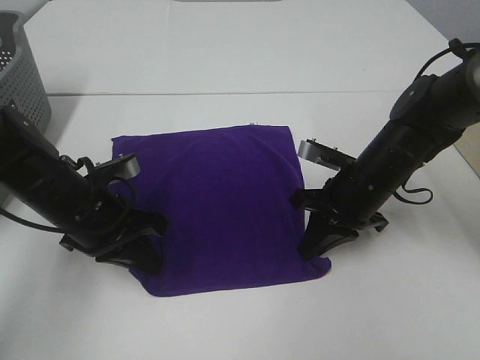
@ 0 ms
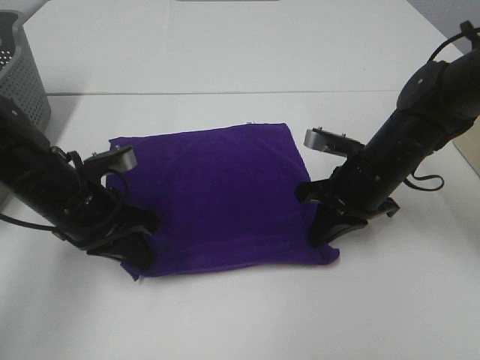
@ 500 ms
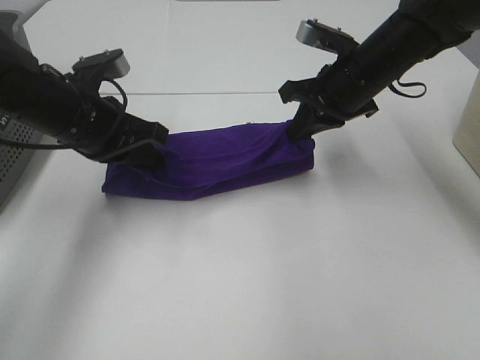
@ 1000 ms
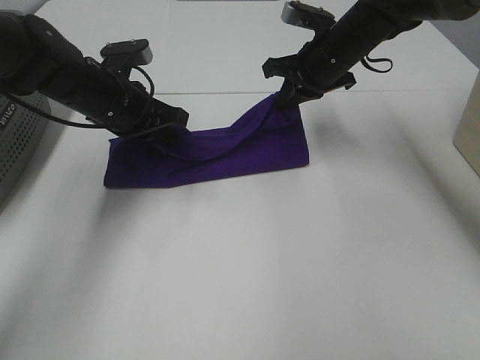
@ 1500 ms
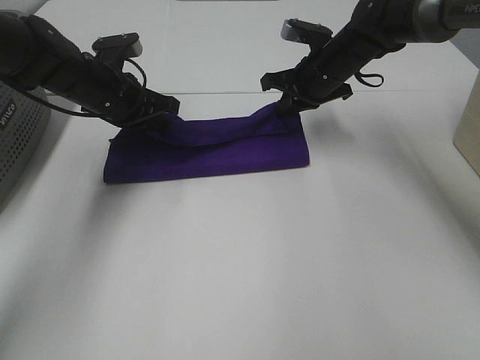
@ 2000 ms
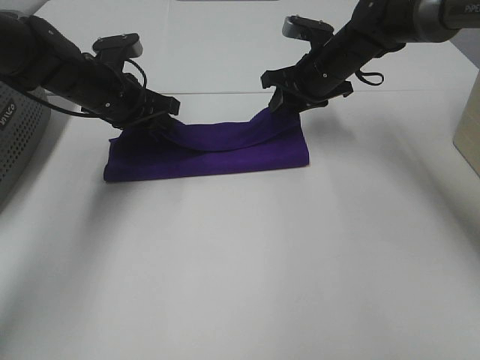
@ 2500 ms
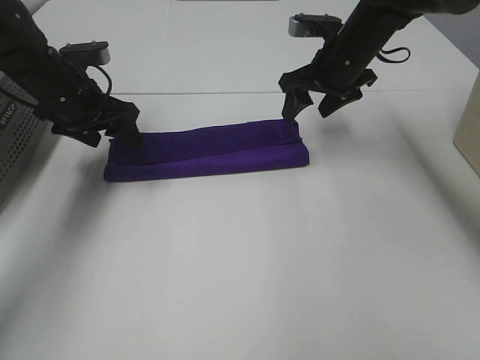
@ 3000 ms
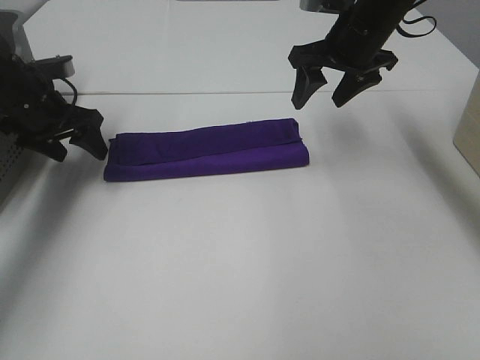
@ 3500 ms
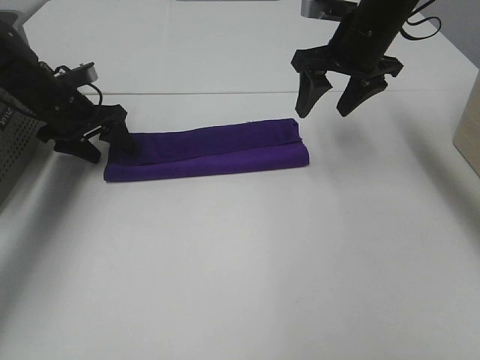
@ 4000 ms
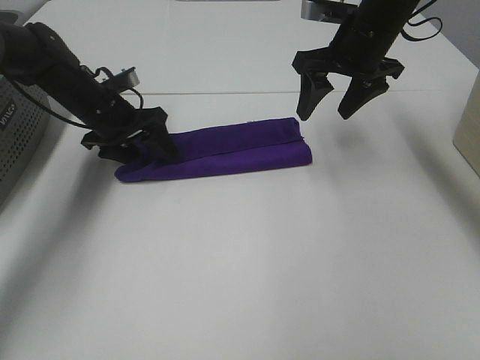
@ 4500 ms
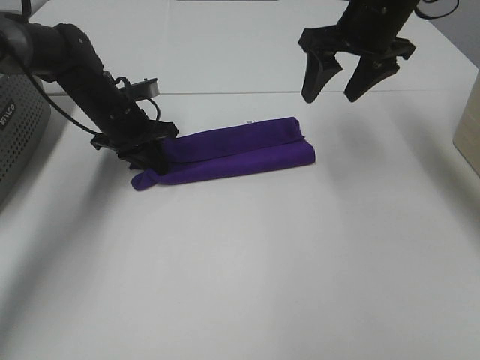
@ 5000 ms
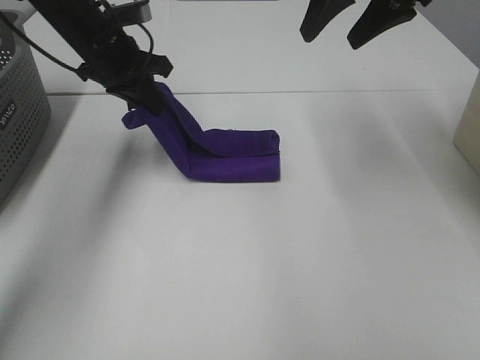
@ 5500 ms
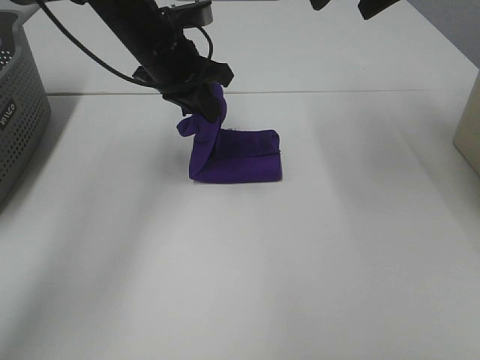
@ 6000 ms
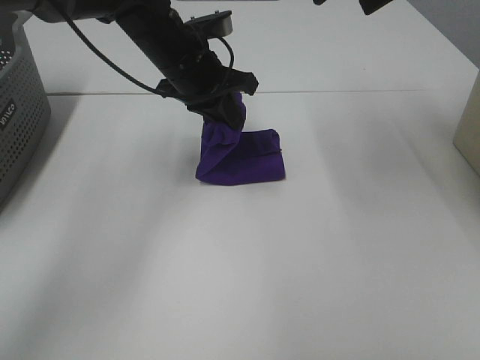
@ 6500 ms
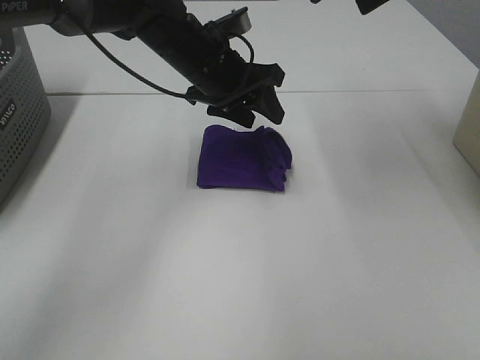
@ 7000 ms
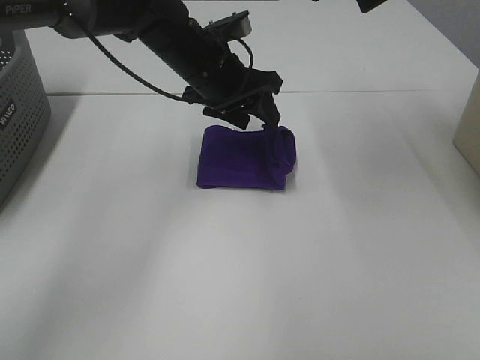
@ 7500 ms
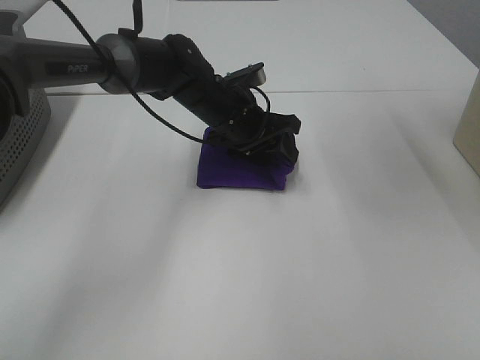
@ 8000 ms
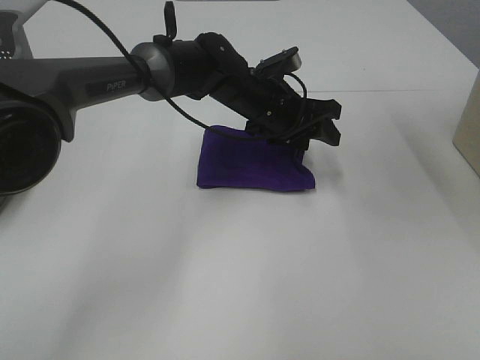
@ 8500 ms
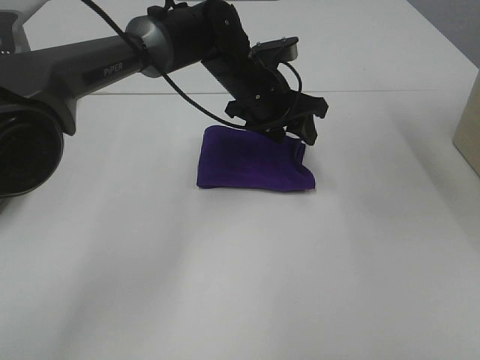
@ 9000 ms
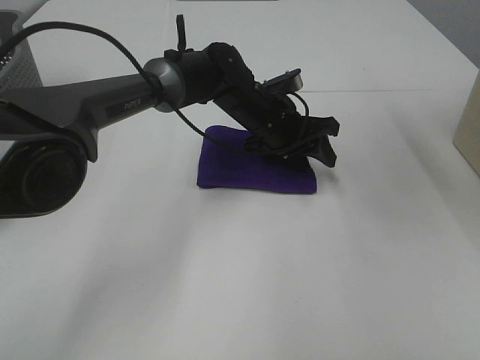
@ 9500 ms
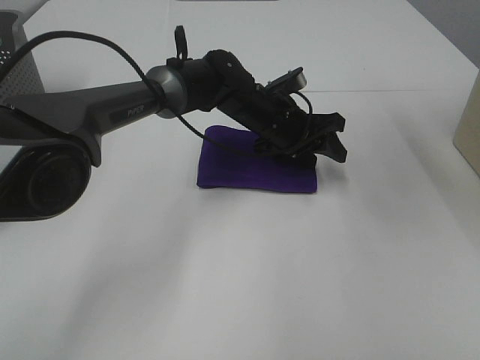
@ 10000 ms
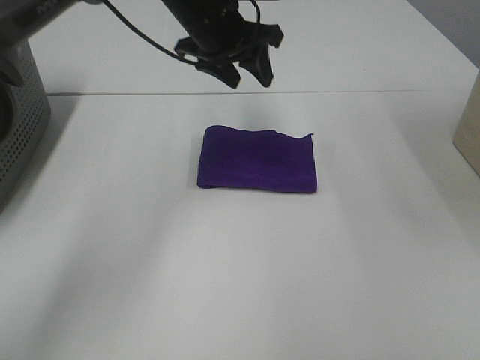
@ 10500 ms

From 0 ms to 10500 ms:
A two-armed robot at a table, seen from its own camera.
Task of the whole recording: Fold towels.
Step, from 500 ms to 2000 ms: Left hand: fold the purple towel up.
Step, from 500 ms to 2000 ms: Right hand: fold the purple towel up.
Step, from 2500 ms to 9500 ms: Left hand: fold the purple towel from left to right.
From 0 ms to 2000 ms: Both grippers move forward and upward, roughly 15 cm.
From 2000 ms to 4000 ms: The left gripper moves to the left, approximately 10 cm, and opens. Meanwhile the right gripper goes some 10 cm upward and backward, and opens up.
From 4000 ms to 6500 ms: The right gripper goes some 15 cm upward and backward. The left gripper goes approximately 20 cm to the right and upward, and closes up.
From 6500 ms to 8500 ms: The left gripper shifts roughly 10 cm to the right and downward, and opens up. Meanwhile the right gripper moves upward, roughly 5 cm.
From 8500 ms to 10500 ms: The right gripper changes place by about 5 cm. The left gripper heads upward and to the left, covering roughly 15 cm.

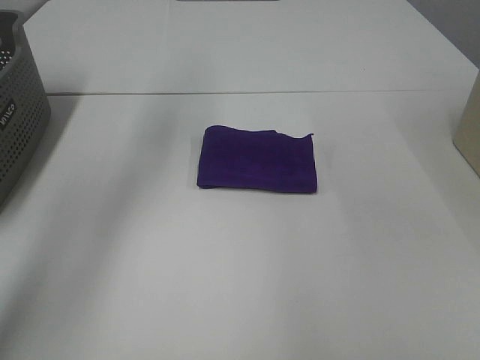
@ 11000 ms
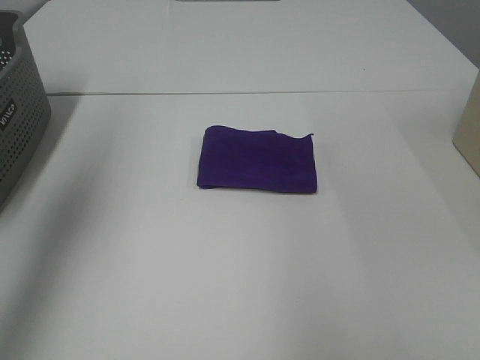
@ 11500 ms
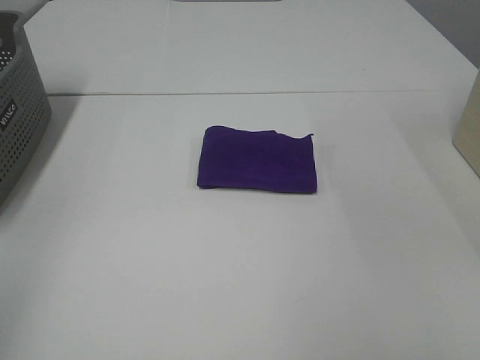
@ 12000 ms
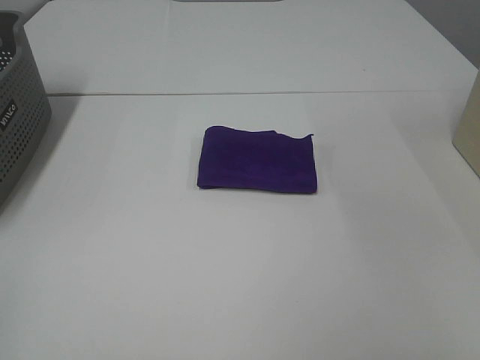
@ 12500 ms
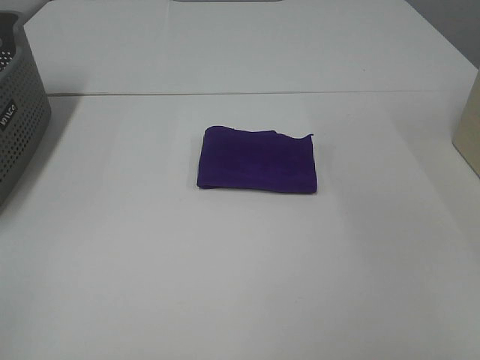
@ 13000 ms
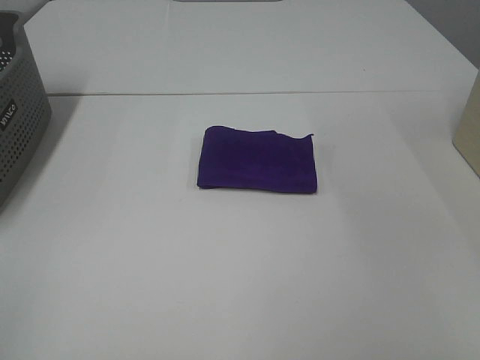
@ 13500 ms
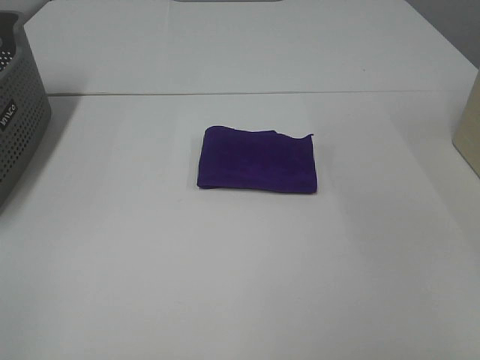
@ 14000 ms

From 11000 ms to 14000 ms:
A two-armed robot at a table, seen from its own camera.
Task of the whole recording: Fold towels.
From 11000 ms to 12500 ms: The left gripper moves backward, approximately 50 cm.
